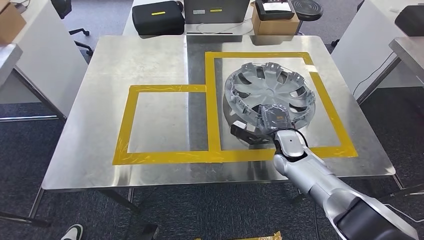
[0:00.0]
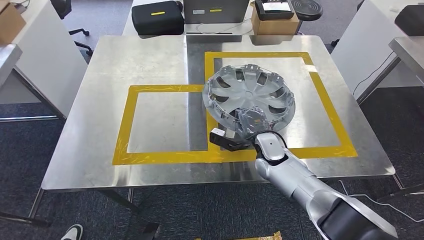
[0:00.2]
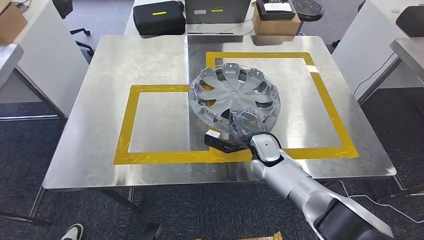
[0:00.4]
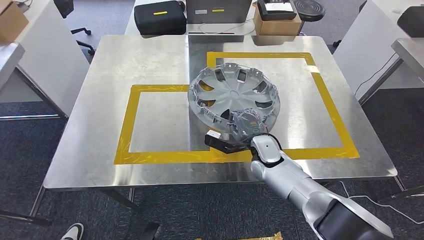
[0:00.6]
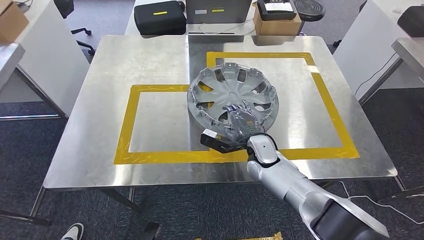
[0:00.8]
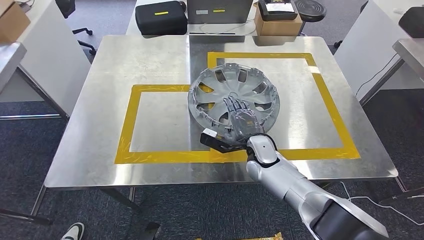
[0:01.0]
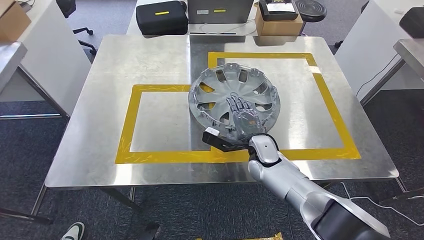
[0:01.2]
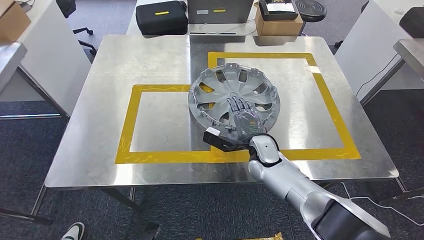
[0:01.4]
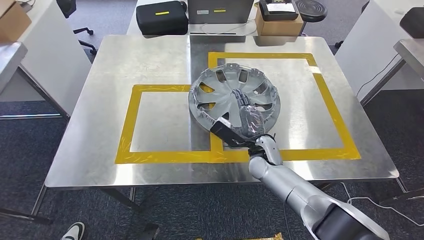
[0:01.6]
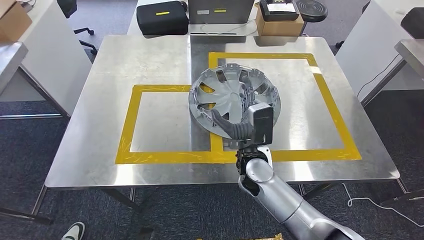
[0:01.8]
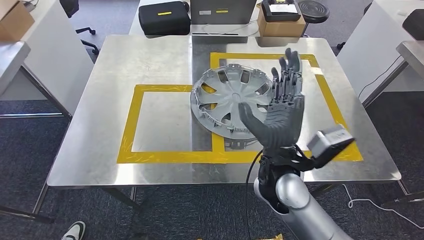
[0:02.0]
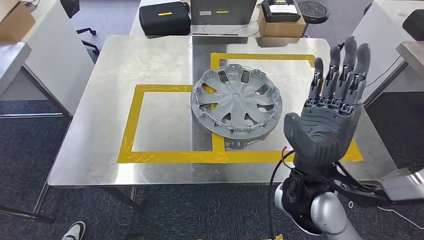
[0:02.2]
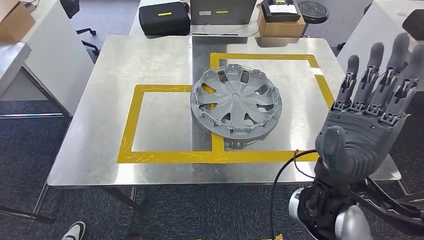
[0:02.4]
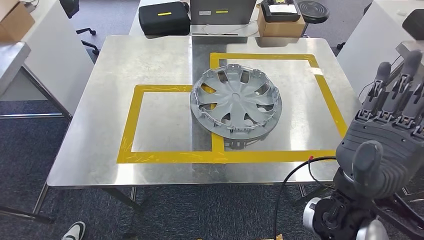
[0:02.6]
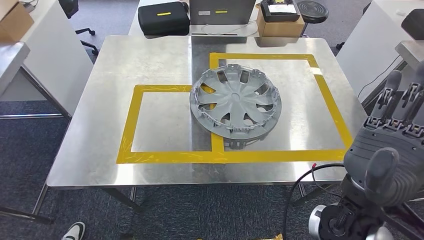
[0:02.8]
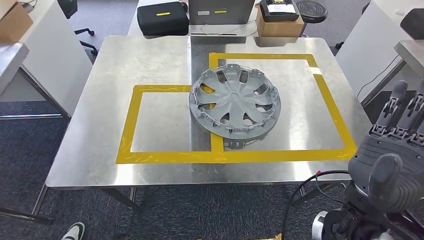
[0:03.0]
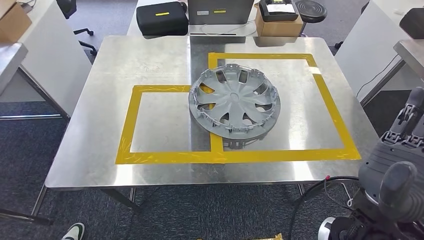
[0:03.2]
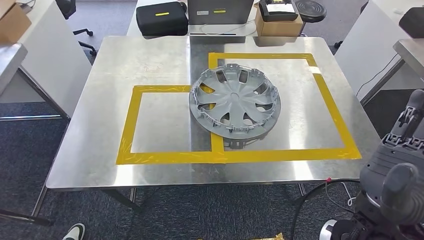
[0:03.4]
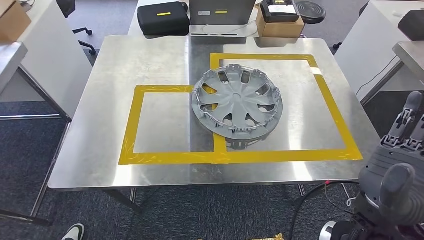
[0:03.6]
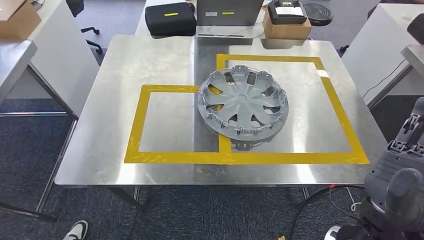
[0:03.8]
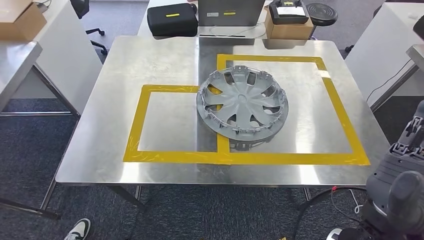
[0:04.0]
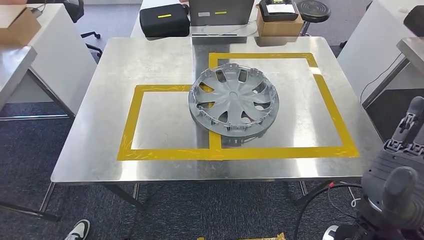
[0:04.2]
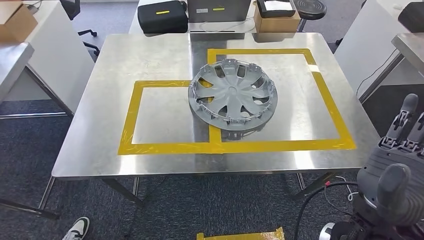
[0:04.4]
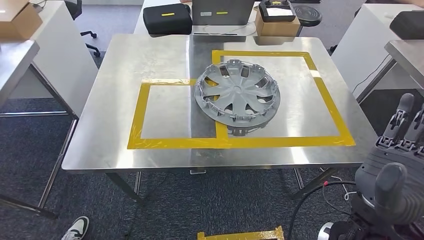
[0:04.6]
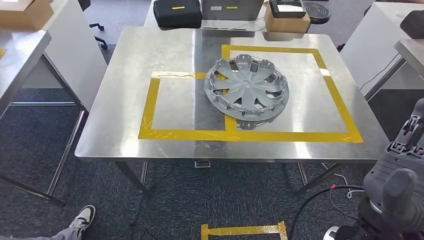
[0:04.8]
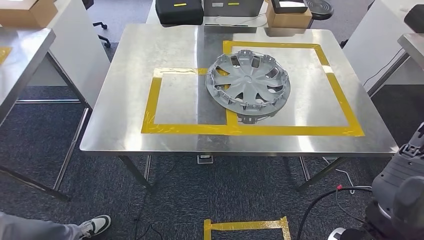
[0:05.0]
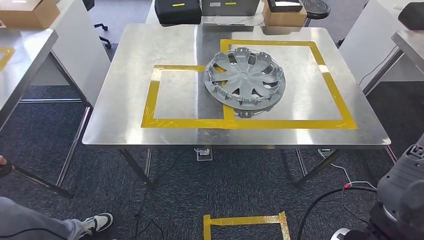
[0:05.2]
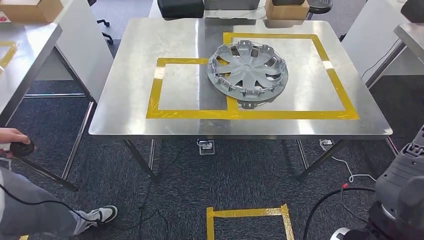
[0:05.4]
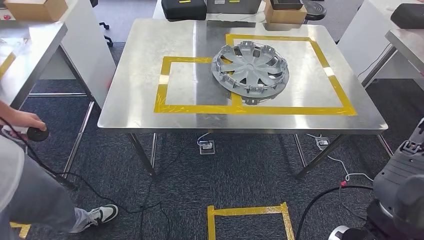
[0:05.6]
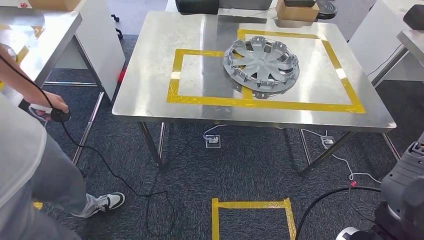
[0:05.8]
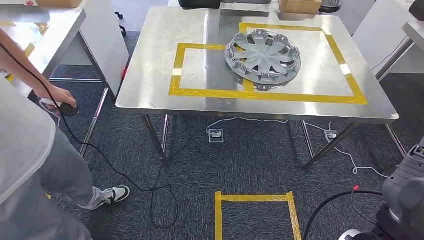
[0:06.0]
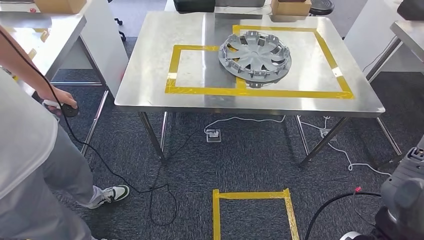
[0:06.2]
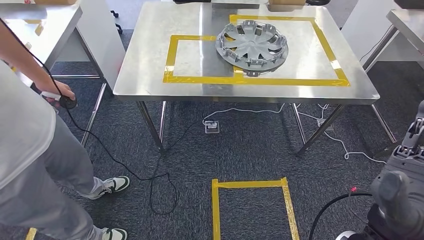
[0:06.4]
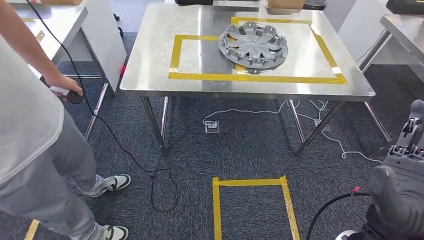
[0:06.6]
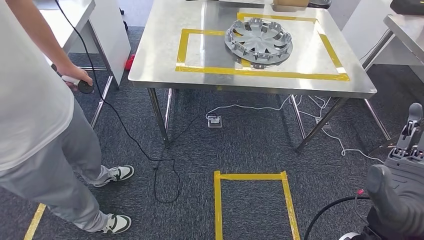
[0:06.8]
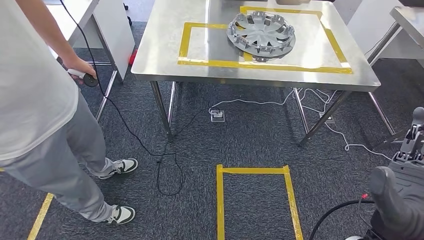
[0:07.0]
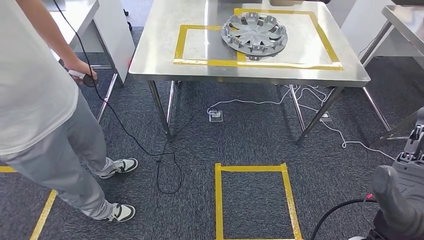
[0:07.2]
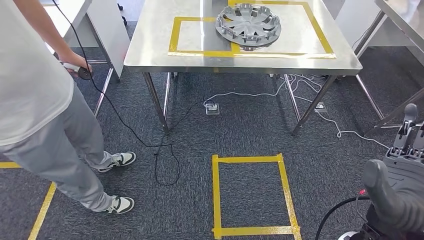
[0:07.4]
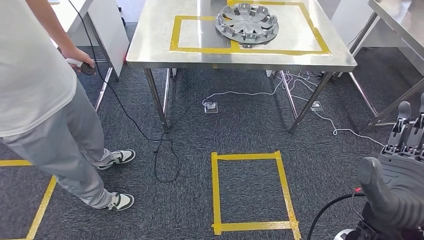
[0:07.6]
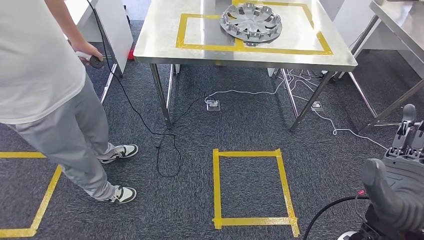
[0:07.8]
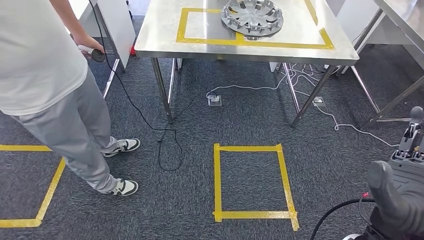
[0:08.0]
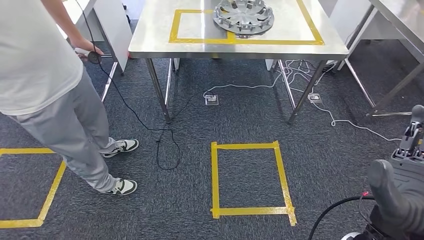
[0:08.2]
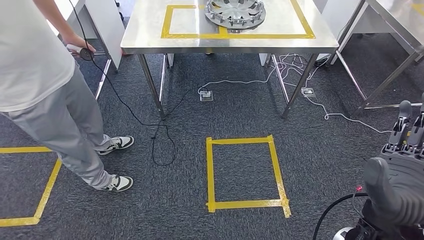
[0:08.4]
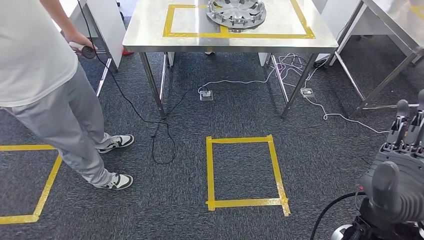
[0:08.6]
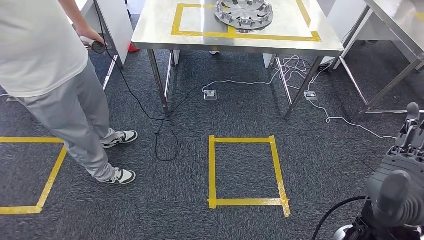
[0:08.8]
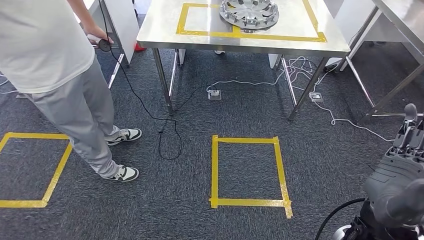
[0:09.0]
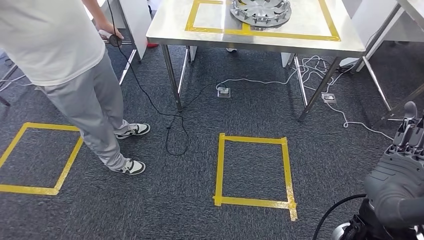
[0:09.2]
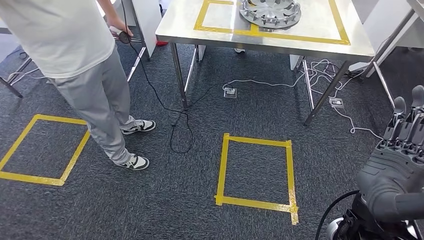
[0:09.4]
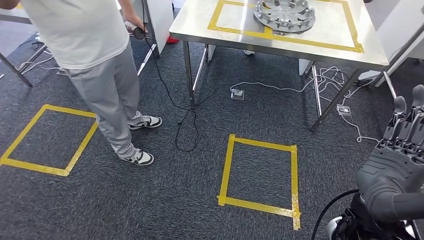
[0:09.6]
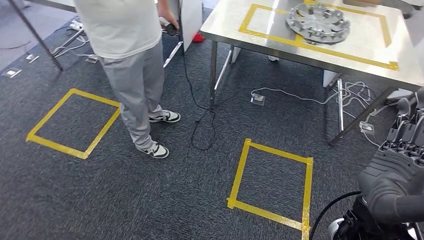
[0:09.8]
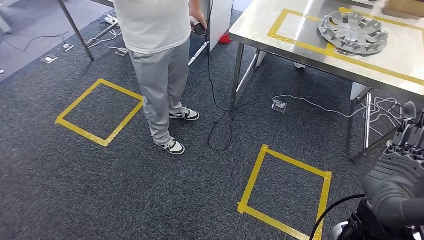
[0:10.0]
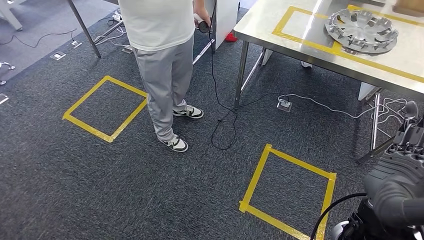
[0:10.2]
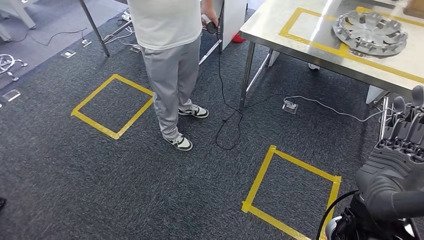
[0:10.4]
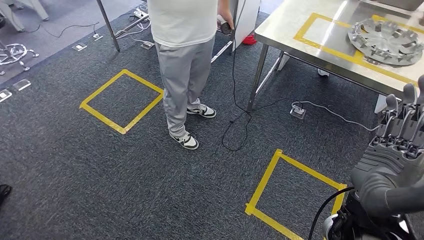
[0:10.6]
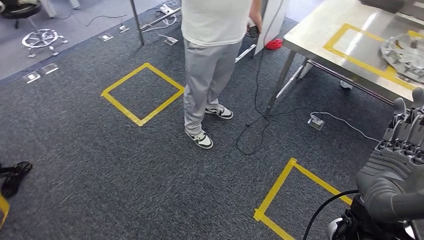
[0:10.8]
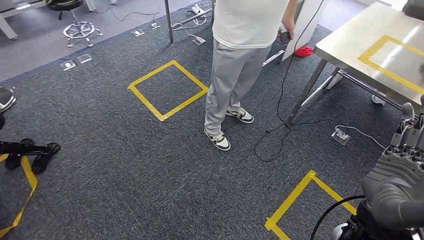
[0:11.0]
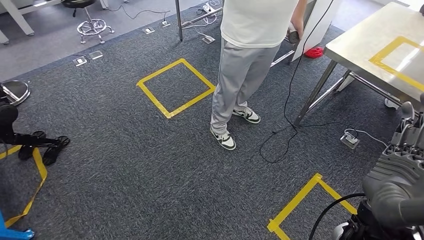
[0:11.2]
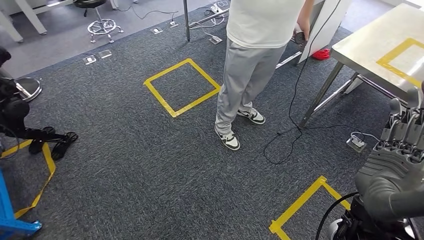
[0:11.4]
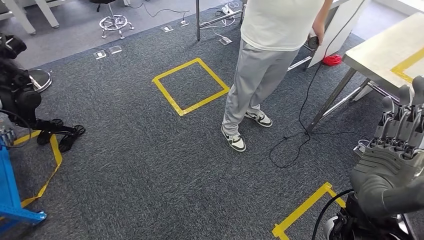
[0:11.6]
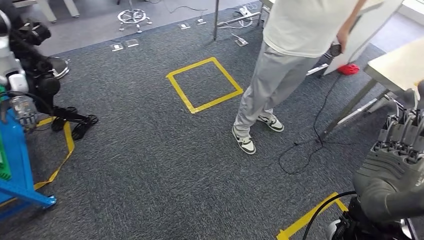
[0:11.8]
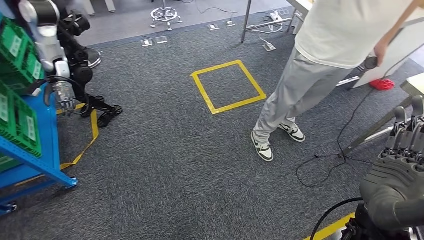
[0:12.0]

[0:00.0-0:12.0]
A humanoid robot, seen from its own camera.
Step, 0:00.0 to 0:05.2: Insert the small component into the corresponding slot on the workbench.
0:01.6 to 0:03.0: The left hand goes approximately 5 cm to the left. Meanwhile the right hand travels backward and upward by about 25 cm.

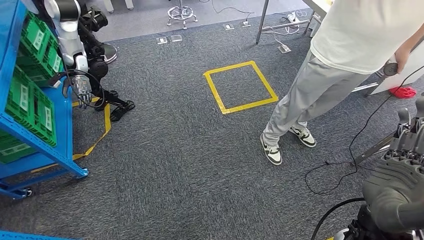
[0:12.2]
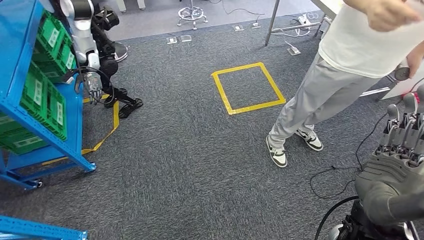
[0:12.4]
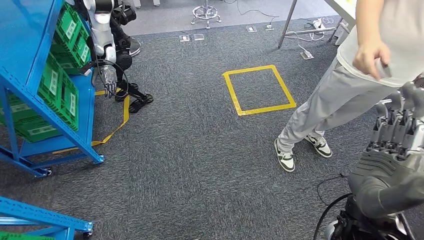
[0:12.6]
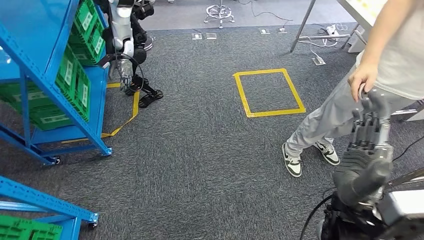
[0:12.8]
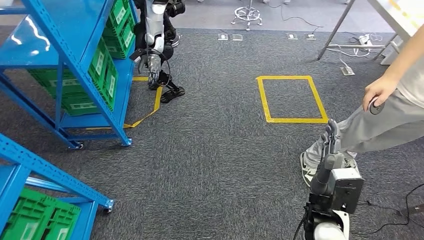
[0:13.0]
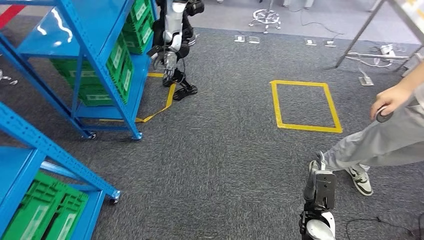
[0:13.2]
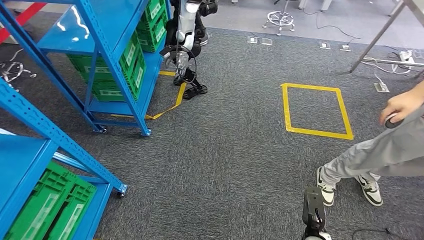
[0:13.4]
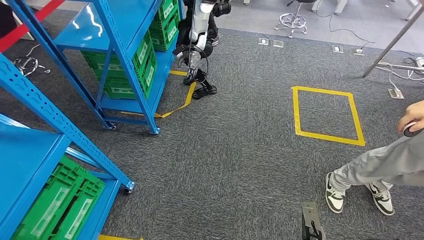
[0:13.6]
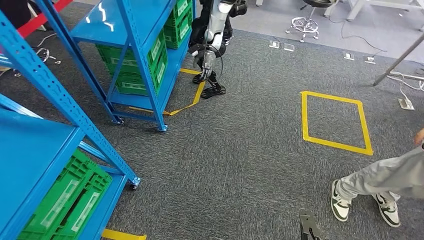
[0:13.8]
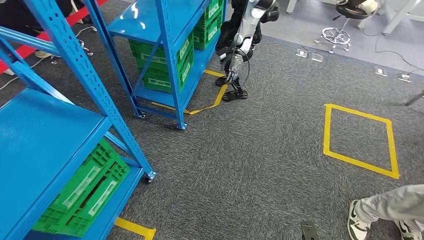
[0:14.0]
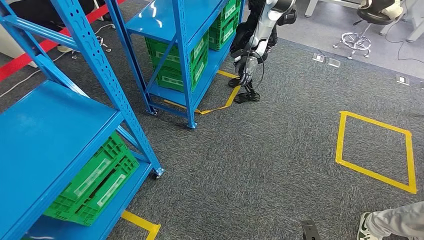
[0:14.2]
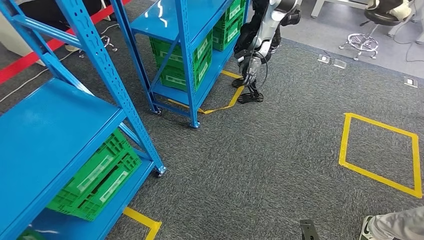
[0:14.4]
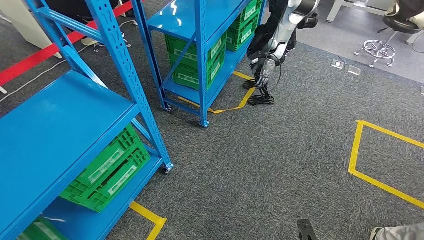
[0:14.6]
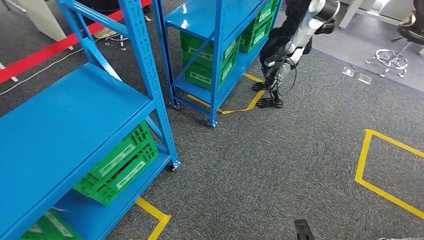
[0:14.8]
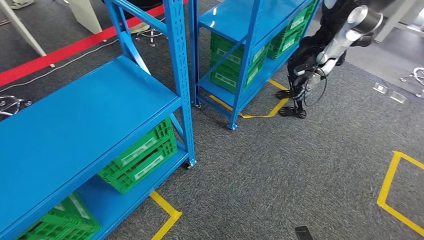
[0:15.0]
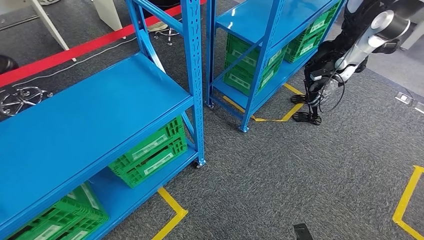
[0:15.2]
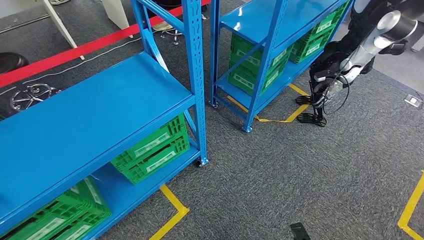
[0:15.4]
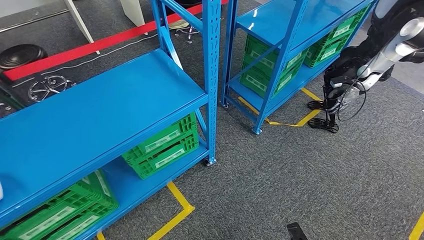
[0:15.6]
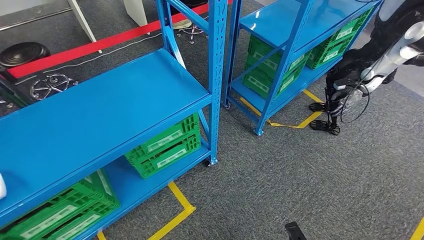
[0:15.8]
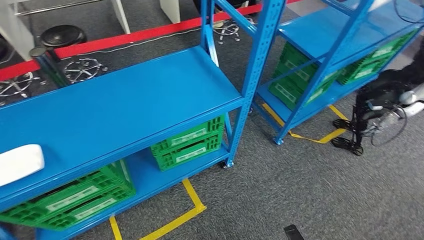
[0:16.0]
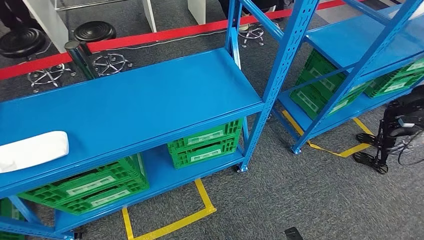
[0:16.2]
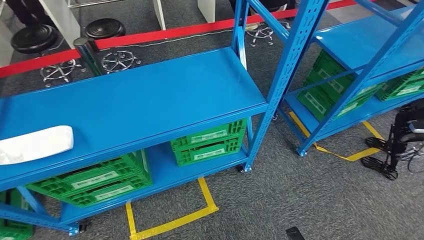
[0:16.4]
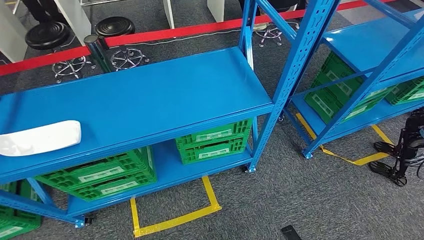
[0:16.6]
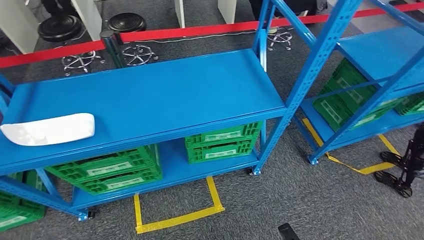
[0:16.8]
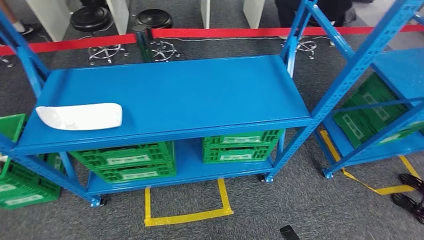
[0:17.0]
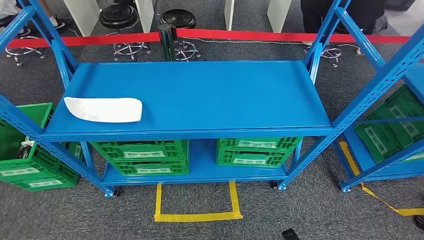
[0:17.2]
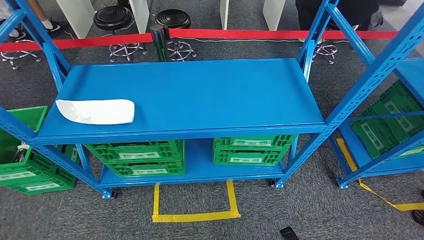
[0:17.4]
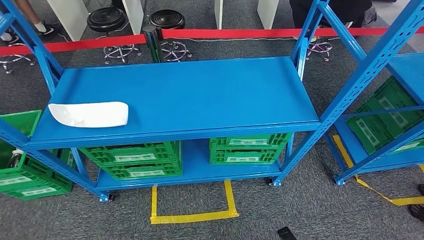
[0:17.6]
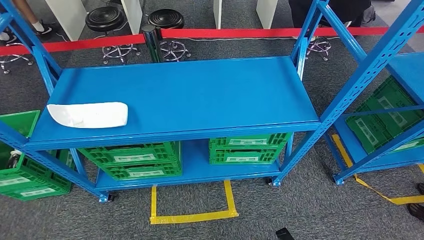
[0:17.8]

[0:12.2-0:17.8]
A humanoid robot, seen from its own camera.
Step, 0:12.2 to 0:17.8: Move to the initial position of the workbench.
